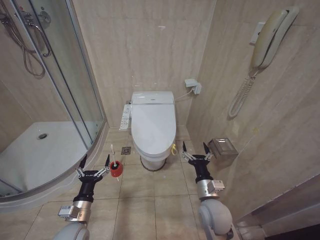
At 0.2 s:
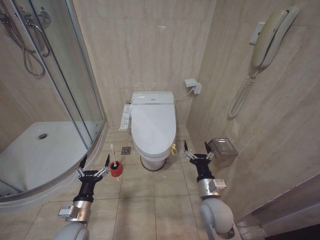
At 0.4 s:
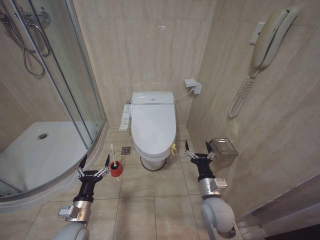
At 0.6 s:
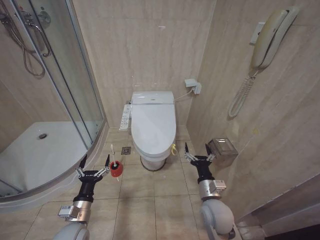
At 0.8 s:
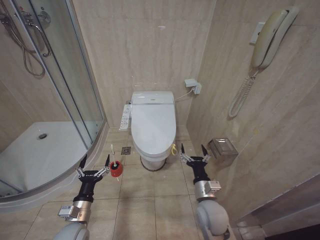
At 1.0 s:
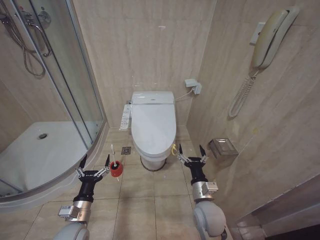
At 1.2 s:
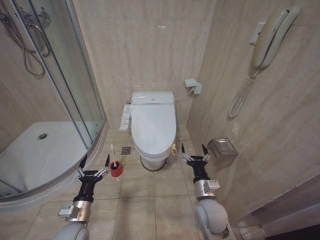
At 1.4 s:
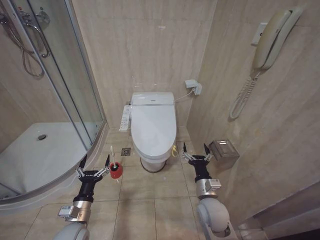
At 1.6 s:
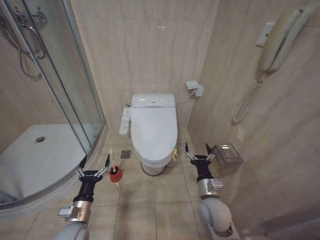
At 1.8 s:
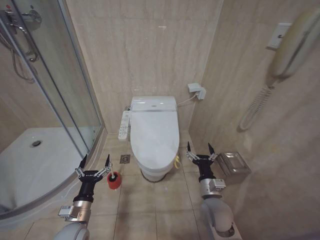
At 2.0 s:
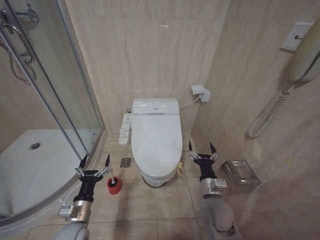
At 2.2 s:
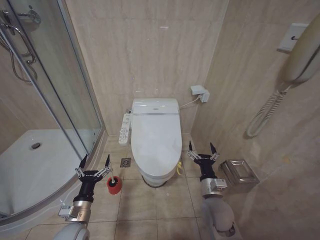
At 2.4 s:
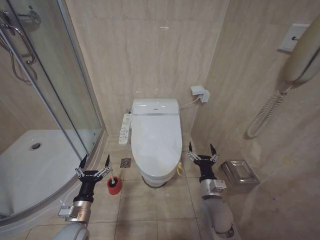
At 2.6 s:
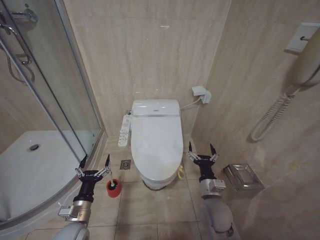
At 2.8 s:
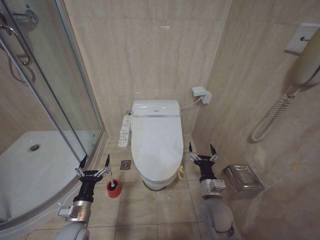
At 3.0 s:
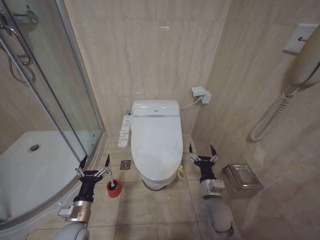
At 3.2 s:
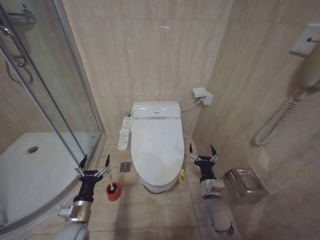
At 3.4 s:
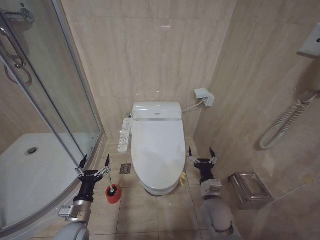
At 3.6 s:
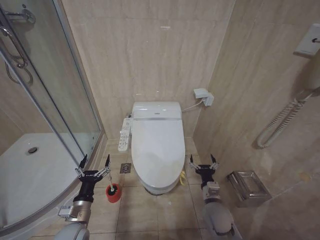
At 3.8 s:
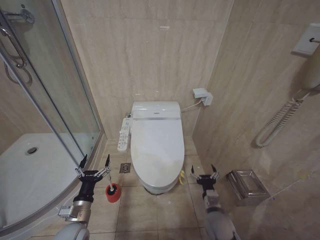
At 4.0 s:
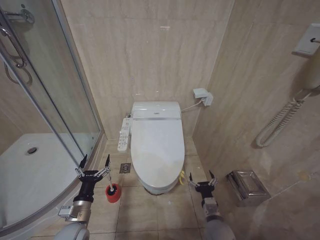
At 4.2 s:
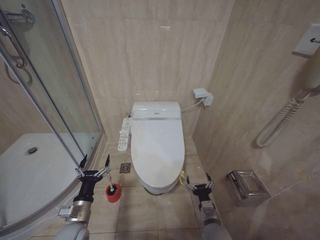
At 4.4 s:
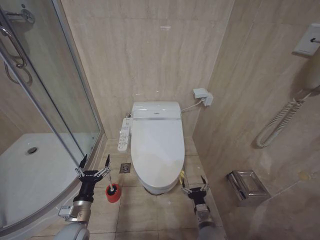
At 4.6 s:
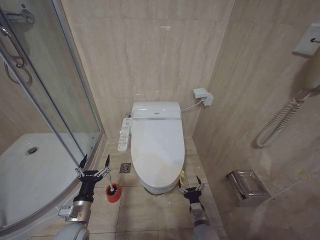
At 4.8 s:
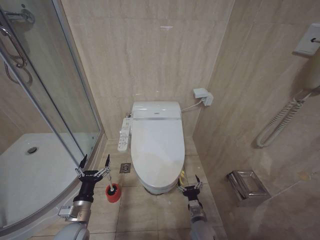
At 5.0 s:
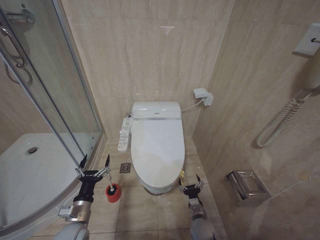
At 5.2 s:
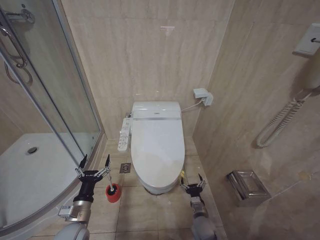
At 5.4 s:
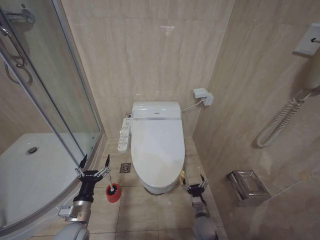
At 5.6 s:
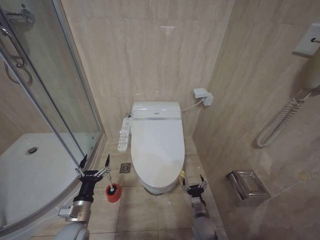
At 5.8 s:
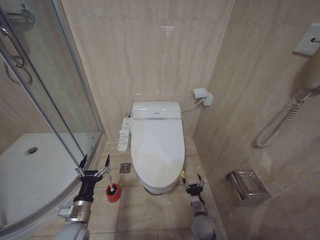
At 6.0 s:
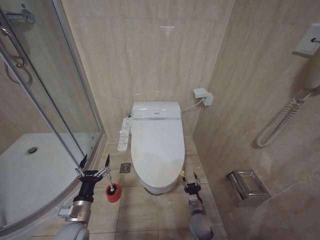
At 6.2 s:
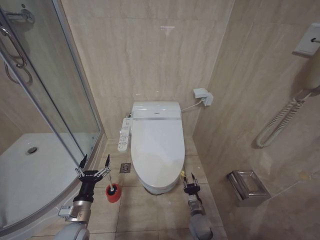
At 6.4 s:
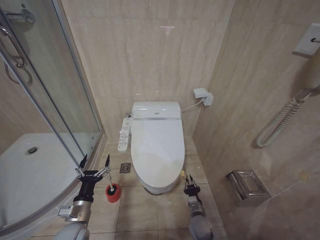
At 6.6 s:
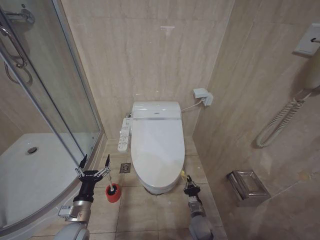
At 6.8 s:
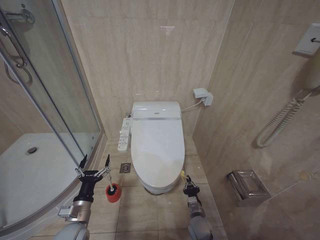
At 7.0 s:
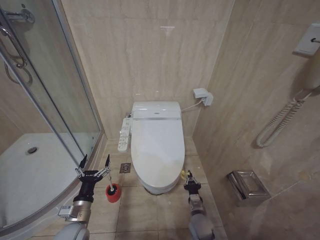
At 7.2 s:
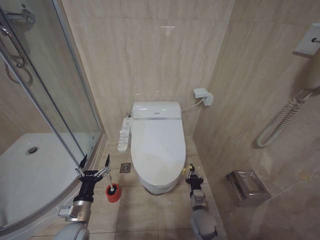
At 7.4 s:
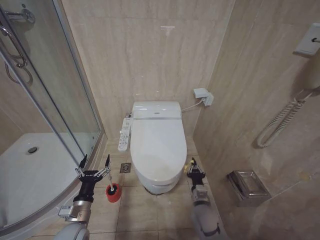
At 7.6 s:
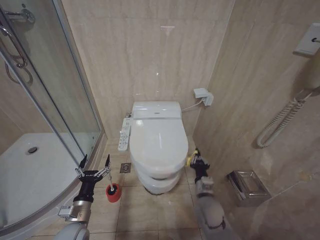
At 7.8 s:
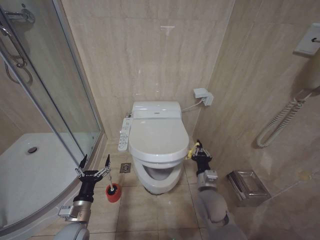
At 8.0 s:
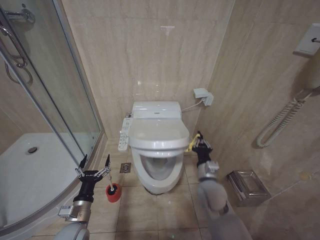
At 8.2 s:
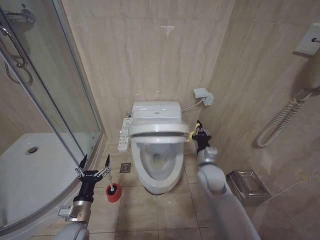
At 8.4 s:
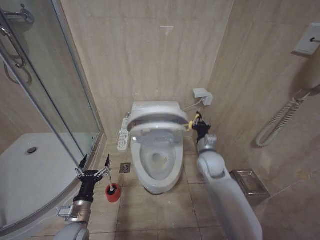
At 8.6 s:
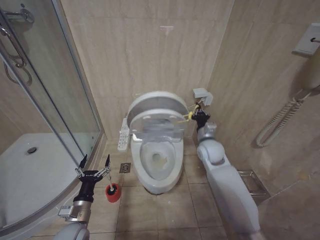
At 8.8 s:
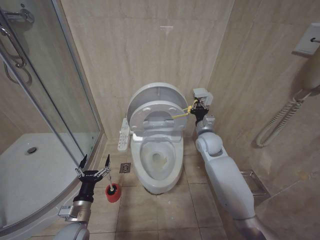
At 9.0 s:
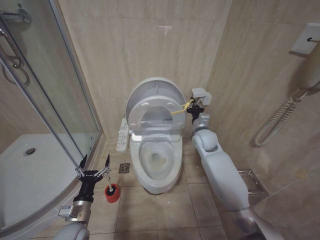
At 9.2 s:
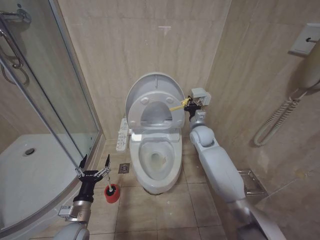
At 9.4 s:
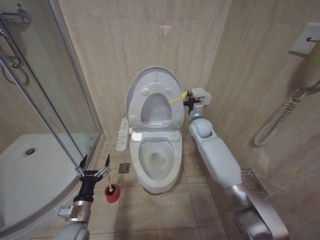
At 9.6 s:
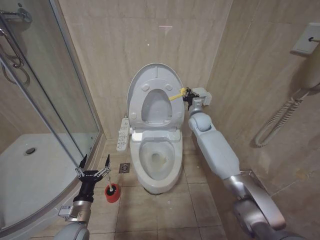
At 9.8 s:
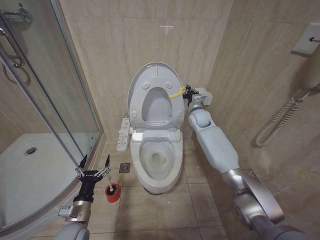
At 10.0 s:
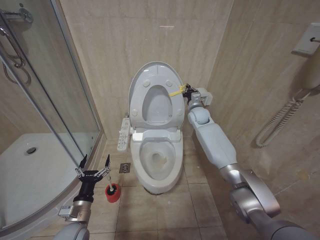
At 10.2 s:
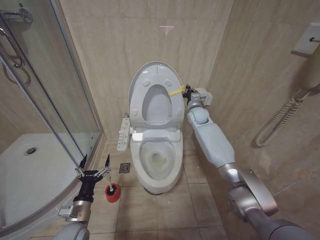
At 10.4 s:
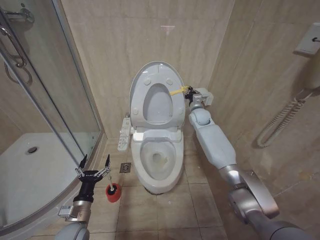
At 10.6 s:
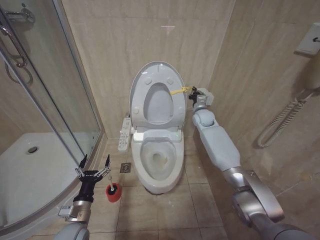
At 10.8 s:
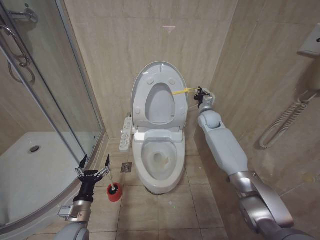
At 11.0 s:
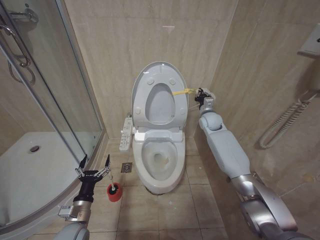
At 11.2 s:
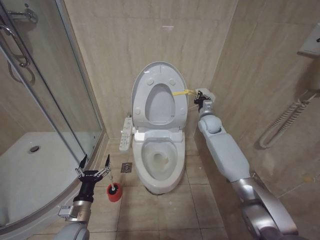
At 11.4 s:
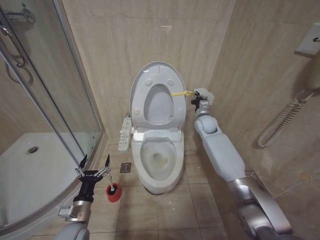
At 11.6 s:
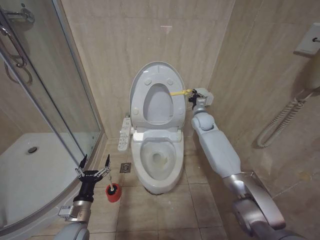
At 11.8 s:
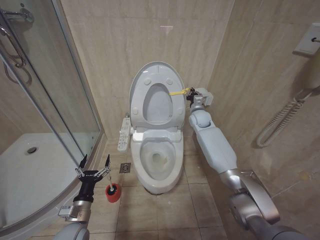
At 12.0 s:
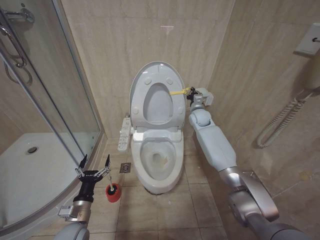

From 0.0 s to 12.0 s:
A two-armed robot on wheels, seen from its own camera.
Task of the whole recording: Open the toilet lid, clean the toilet bowl with a toilet brush, close the toilet lid, and flush.
From 0.0 s to 1.6 s: The grippers stay close to where they were, moving slightly.
From 1.6 s to 3.0 s: Neither gripper changes place.
From 3.0 s to 4.4 s: The right gripper goes roughly 10 cm downward.
From 4.4 s to 6.0 s: The right gripper is displaced forward and downward by about 10 cm.
From 6.0 s to 7.6 s: The right gripper shifts roughly 15 cm upward, and closes.
From 7.6 s to 9.0 s: The right gripper is displaced forward and upward by some 30 cm.
From 9.0 s to 10.4 s: The right gripper shifts some 10 cm forward.

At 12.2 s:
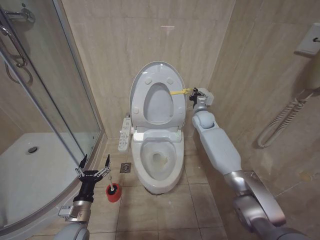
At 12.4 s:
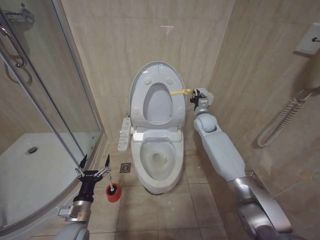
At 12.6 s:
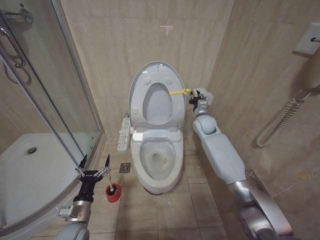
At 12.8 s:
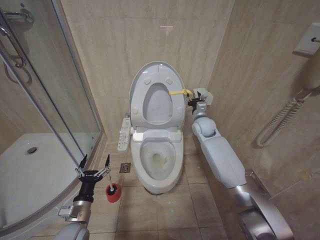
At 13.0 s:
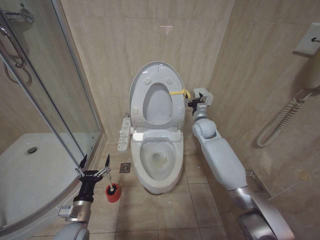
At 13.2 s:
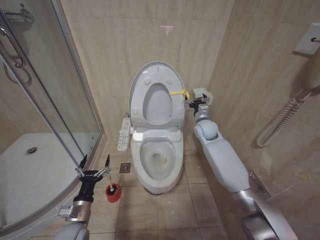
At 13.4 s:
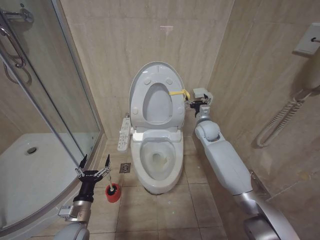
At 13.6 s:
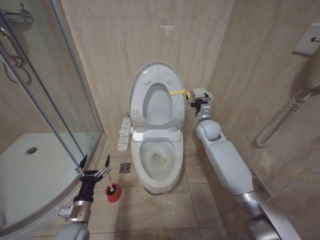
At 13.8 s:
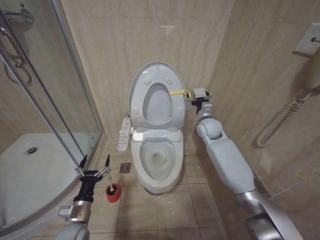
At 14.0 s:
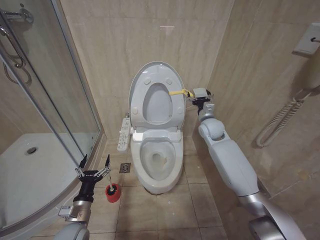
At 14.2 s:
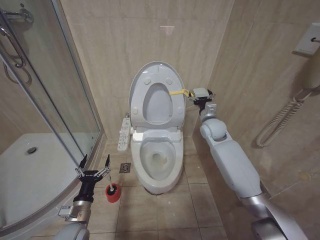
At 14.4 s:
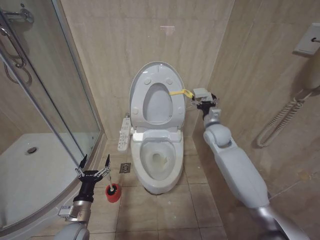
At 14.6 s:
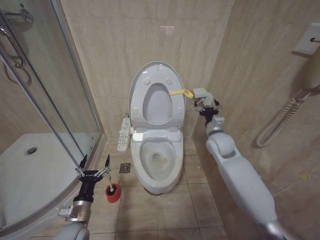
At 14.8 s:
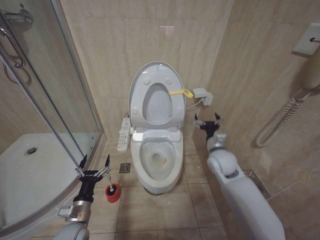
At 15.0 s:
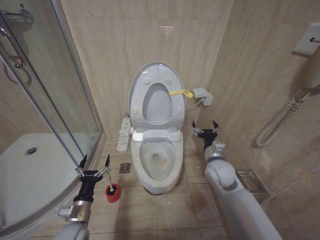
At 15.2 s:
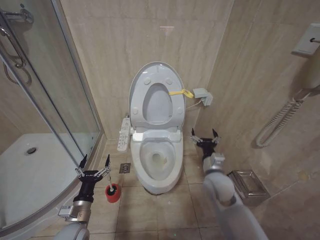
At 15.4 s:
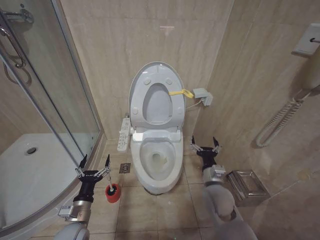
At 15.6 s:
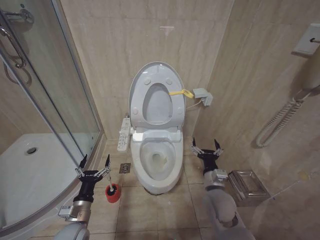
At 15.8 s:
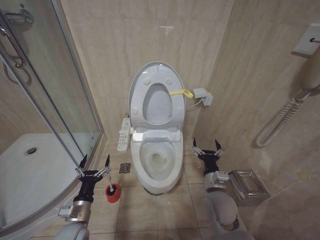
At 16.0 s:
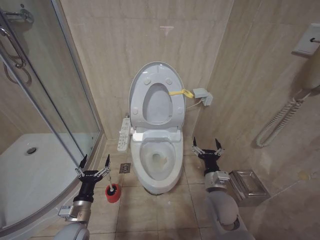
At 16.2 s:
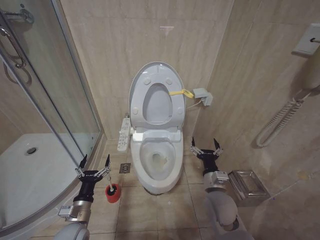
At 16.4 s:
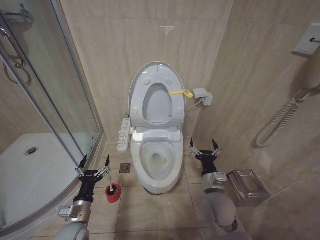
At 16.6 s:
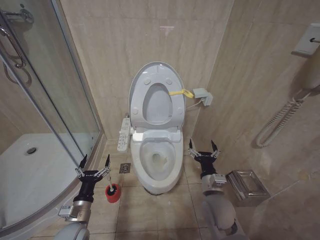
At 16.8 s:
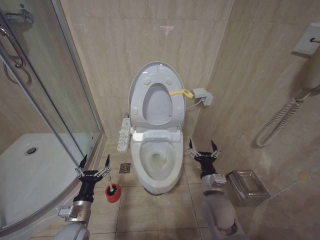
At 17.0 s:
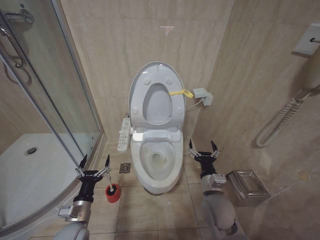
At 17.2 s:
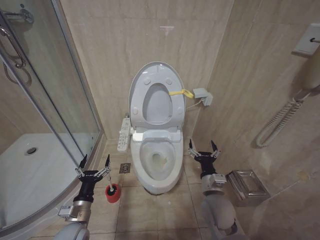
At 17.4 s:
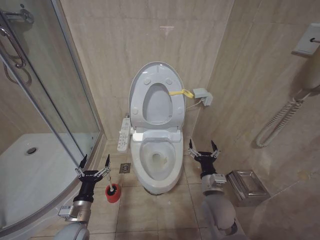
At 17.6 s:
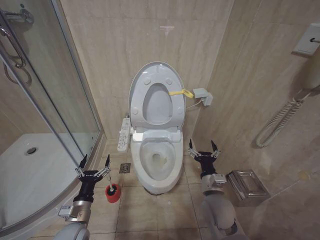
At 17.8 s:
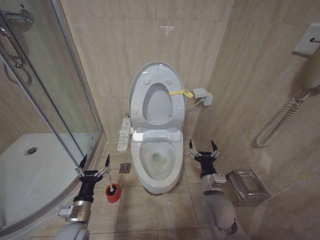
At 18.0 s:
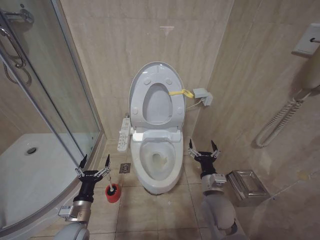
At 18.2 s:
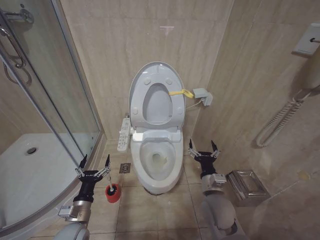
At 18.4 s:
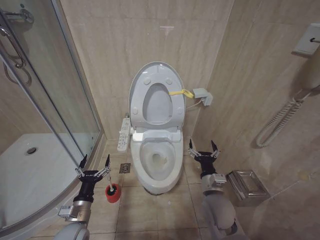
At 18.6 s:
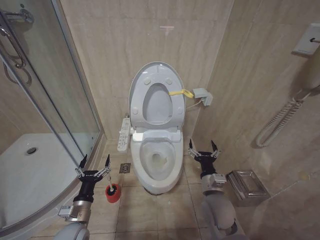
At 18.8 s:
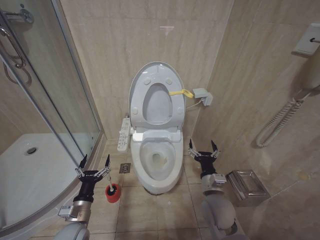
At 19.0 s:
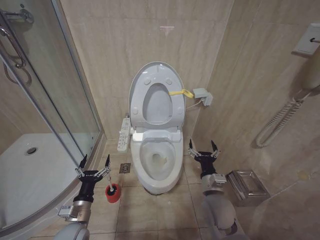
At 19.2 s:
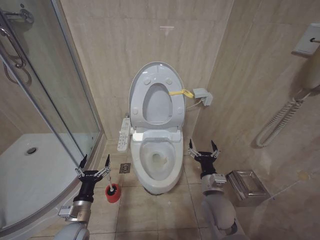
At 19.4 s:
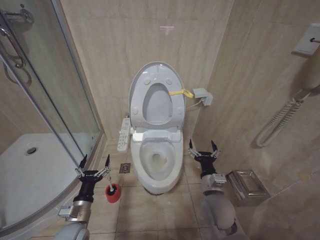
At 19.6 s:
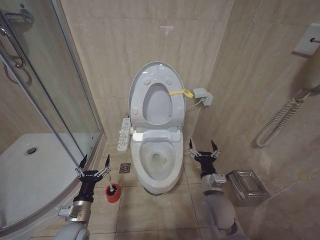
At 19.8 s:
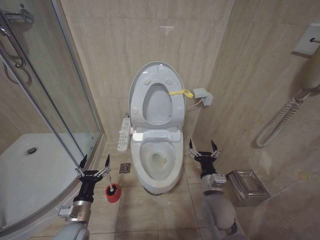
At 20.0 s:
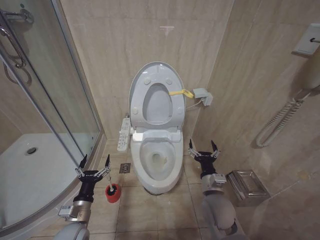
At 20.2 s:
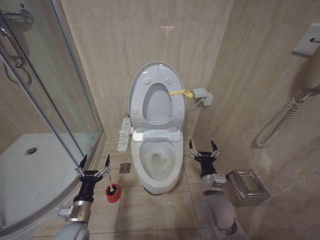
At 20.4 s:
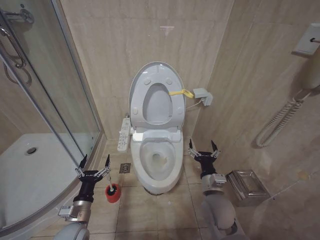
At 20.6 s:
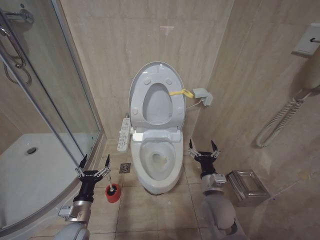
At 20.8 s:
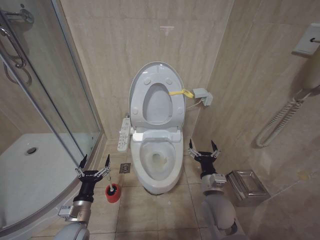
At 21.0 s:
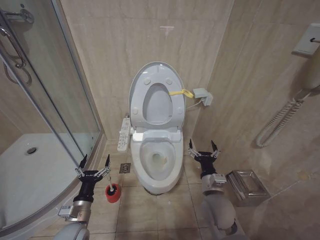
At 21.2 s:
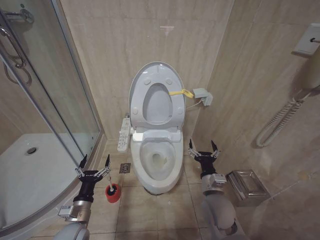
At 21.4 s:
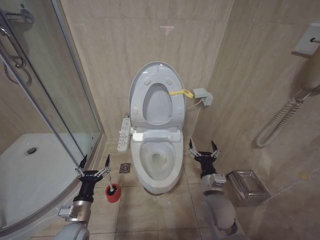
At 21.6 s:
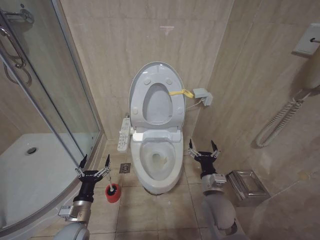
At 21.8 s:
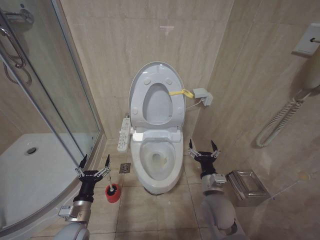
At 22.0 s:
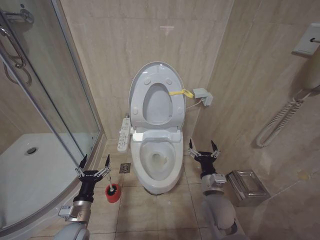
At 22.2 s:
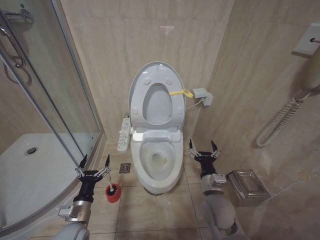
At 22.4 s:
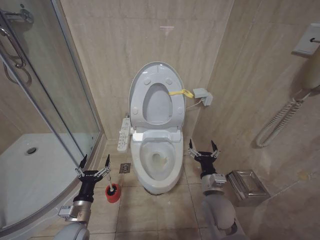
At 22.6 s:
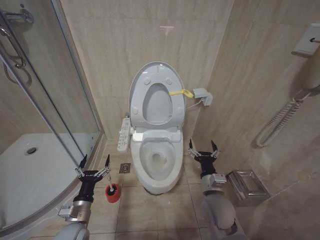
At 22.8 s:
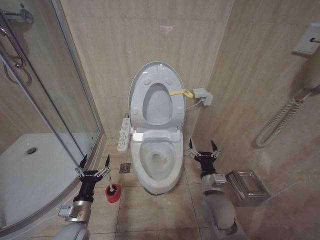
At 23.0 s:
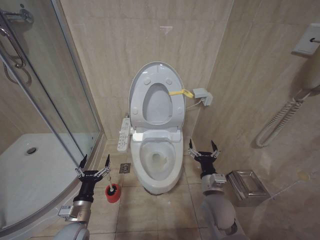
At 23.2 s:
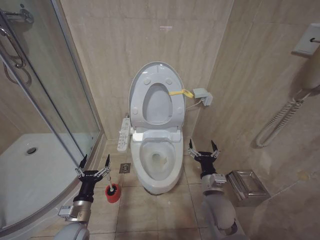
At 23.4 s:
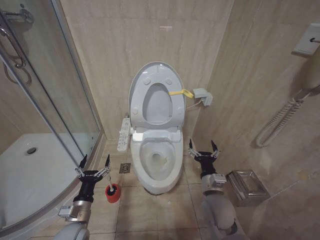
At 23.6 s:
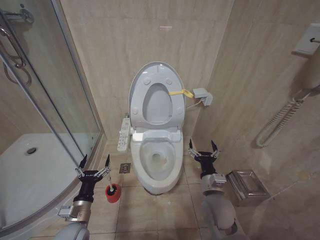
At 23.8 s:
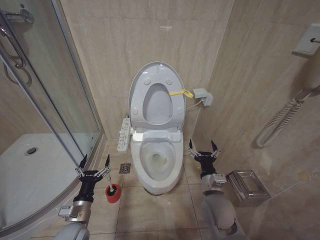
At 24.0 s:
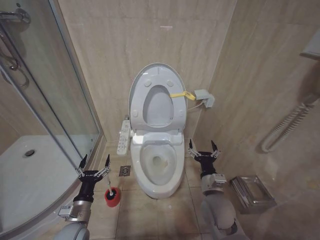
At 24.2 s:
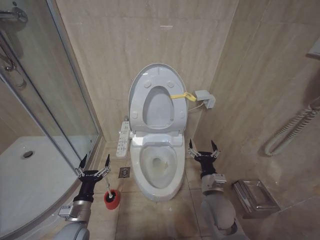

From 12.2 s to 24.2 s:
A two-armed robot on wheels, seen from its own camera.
Task of the whole recording: Open the toilet lid, clean the toilet bowl with a toilet brush, close the toilet lid, and flush.
From 12.2 s to 13.8 s: The right gripper goes roughly 5 cm backward, and opens up.
From 13.8 s to 15.2 s: The right gripper is displaced backward and downward by roughly 20 cm.
From 15.2 s to 16.6 s: The right gripper heads backward, covering approximately 5 cm.
From 16.6 s to 24.2 s: Both grippers stay put.
